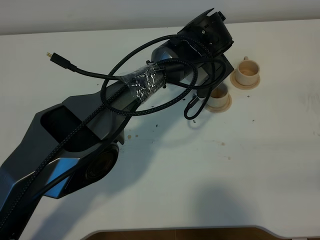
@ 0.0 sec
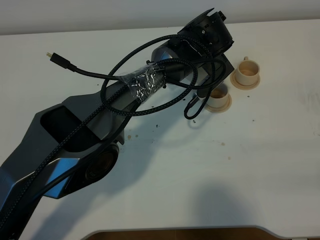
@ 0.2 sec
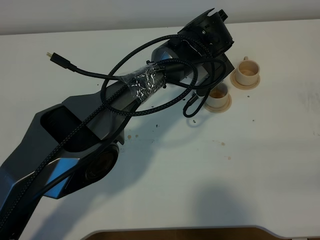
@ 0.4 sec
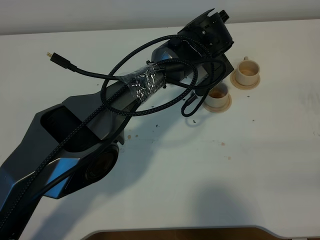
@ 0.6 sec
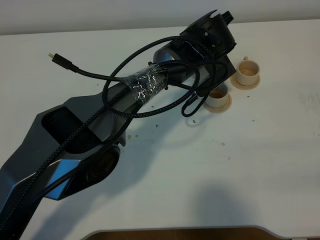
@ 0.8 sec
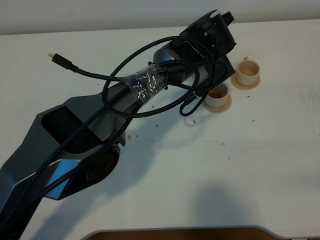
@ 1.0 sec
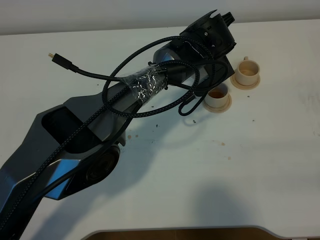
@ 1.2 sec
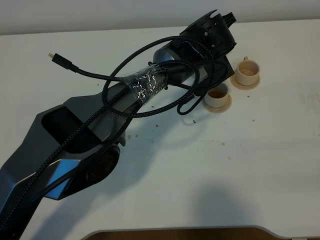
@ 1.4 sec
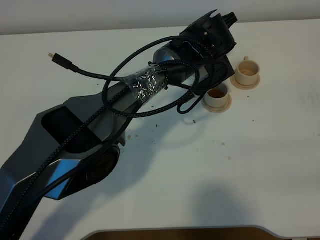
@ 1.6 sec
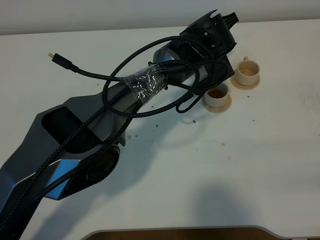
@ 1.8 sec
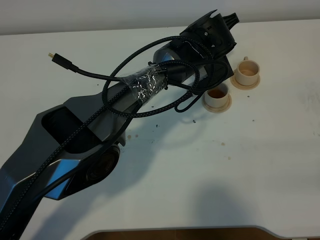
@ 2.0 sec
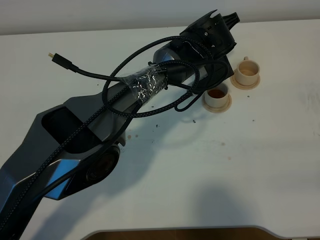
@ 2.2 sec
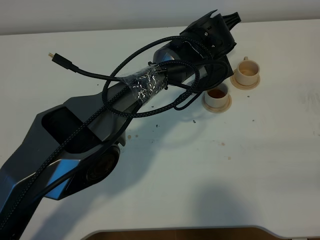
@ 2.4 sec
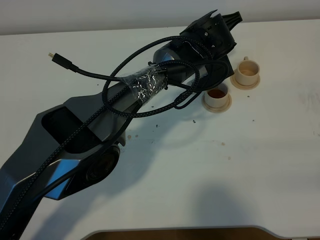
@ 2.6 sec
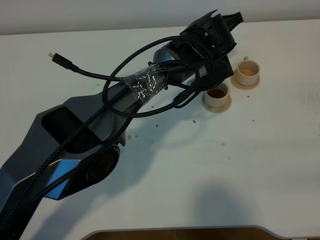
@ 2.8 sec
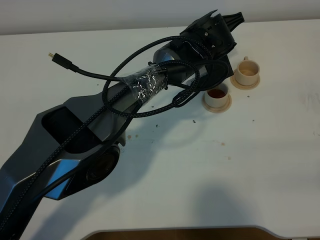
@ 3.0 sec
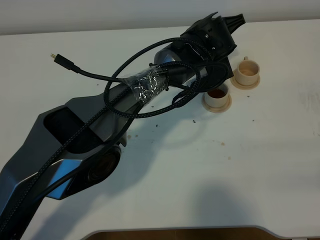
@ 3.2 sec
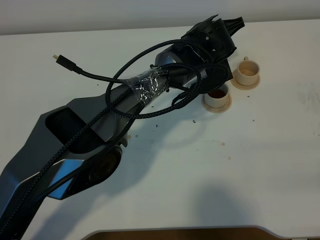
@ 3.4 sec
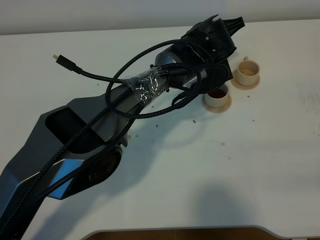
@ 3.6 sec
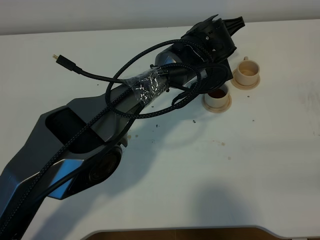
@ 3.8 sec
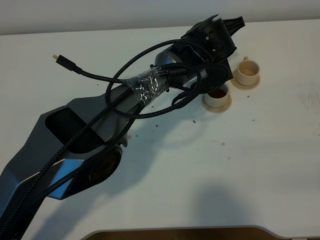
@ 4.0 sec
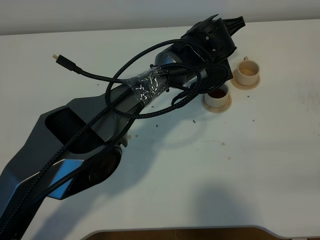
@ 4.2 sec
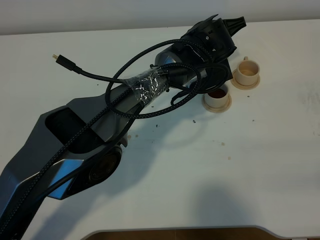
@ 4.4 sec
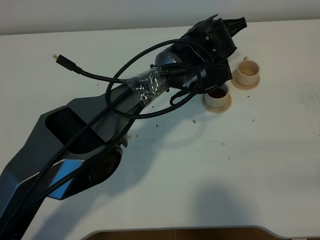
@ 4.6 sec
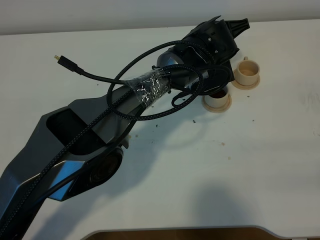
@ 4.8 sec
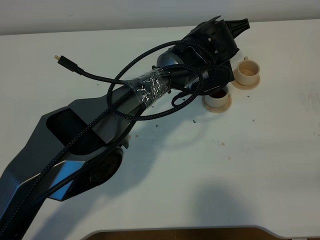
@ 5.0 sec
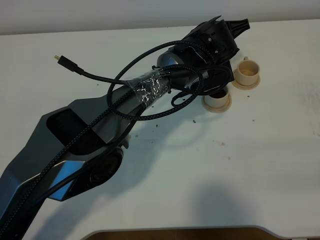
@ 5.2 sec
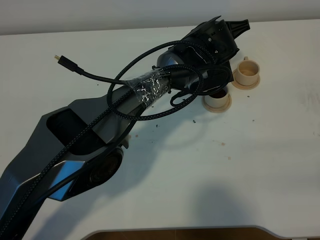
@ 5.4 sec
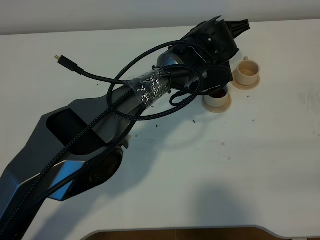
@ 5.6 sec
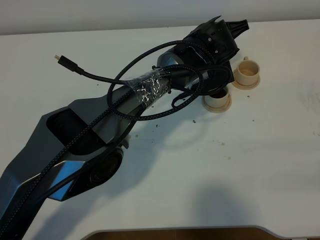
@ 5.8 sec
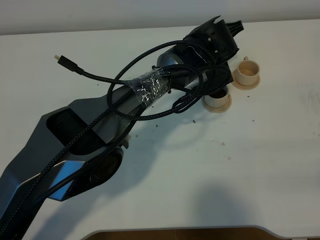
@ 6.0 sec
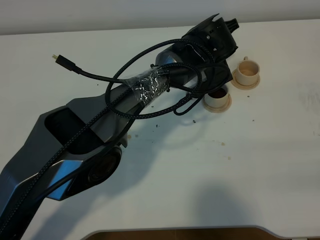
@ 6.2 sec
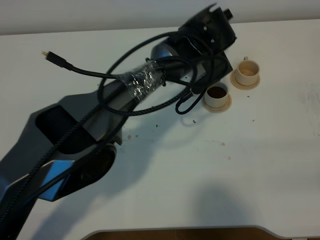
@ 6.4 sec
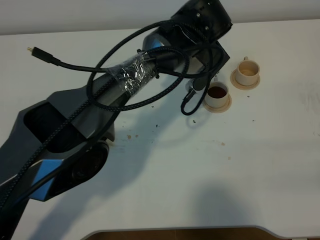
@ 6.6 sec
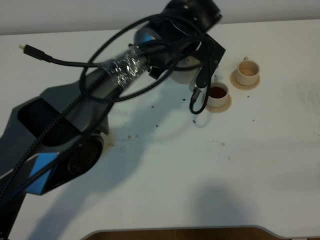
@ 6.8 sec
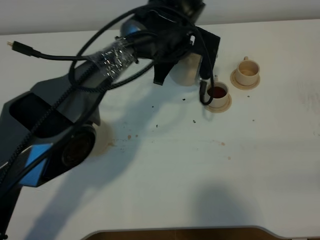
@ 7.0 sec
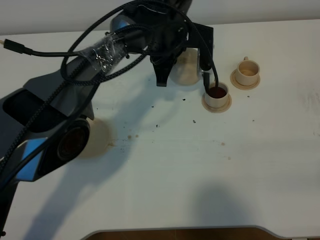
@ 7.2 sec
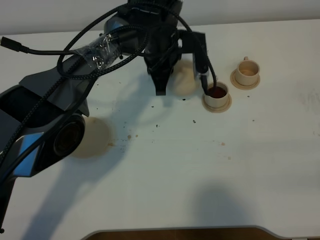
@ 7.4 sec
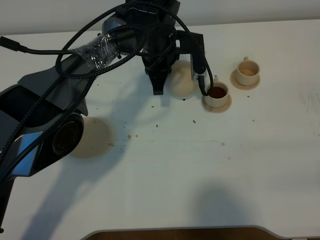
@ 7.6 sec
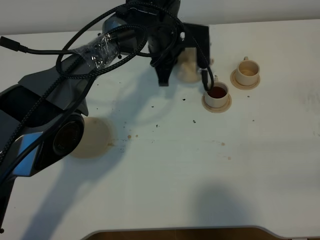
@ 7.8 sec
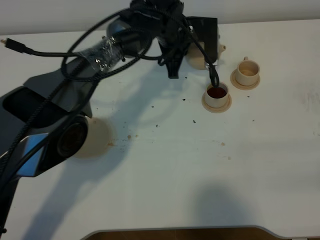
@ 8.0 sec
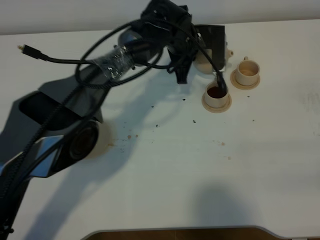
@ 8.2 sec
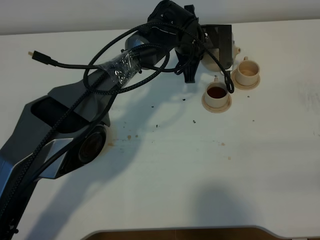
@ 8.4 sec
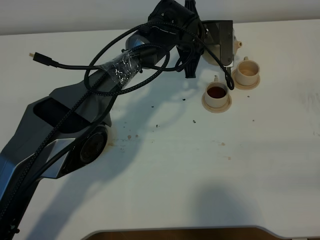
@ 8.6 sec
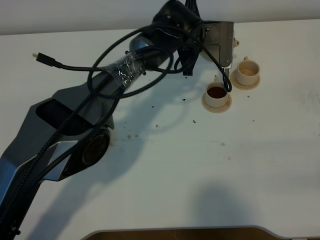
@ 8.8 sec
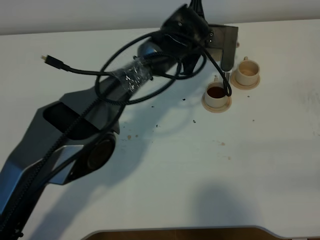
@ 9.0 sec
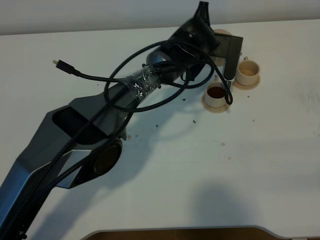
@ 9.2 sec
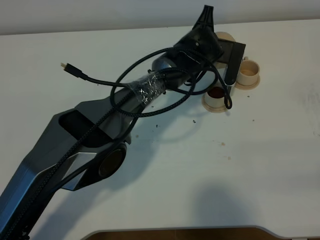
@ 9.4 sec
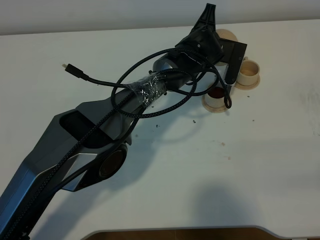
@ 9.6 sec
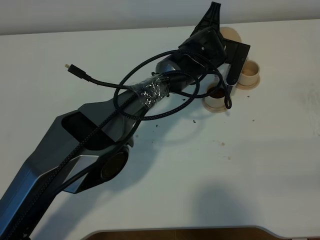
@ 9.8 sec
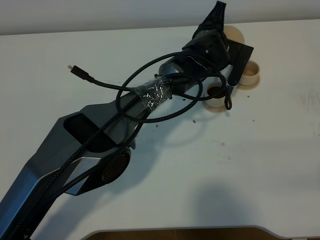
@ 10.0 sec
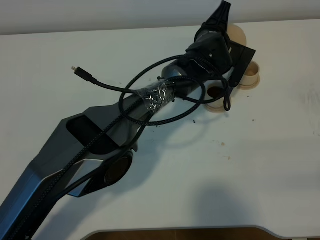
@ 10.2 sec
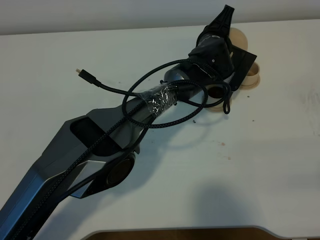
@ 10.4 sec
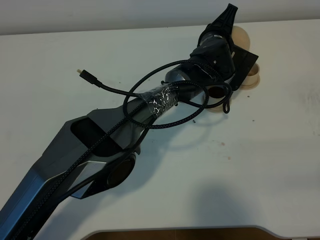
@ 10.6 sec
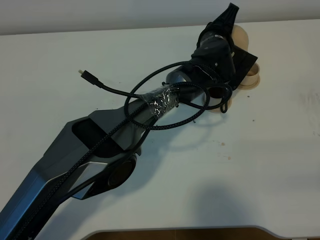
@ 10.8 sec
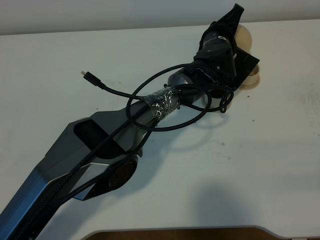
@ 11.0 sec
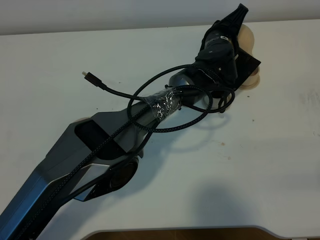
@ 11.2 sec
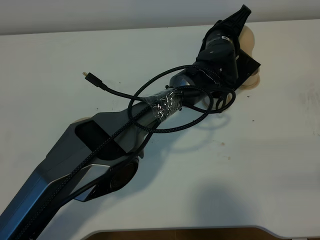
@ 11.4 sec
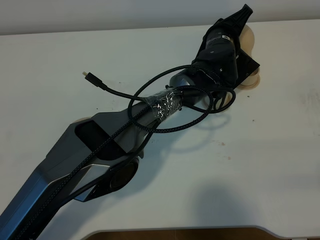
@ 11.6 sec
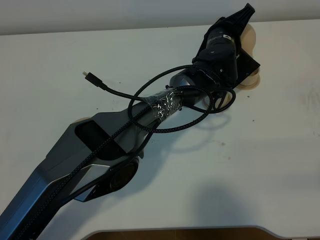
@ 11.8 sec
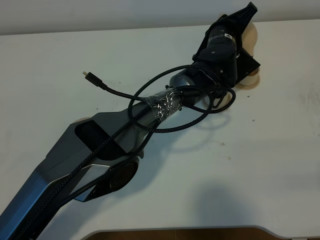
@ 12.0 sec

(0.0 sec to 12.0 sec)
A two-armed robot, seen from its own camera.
Task of the whole recording: grasp the brown teapot and pour the tea into the two brown teacups one by one, put the brown teapot back in its original place.
0.0 sec - 1.6 sec: The grippers move only a little.
3.0 sec - 4.4 sec: The two grippers keep their place.
4.4 sec - 6.0 sec: There are only small adjustments of the grippers.
6.0 sec - 7.6 sec: The left gripper is displaced to the left by some 10 cm.
7.6 sec - 9.0 sec: The left gripper is displaced to the right by about 5 cm.
9.0 sec - 10.4 sec: The left gripper shifts by roughly 5 cm.

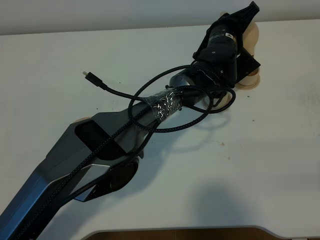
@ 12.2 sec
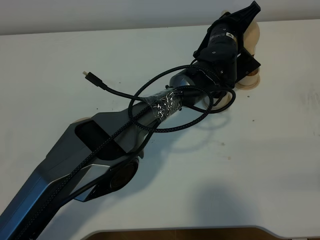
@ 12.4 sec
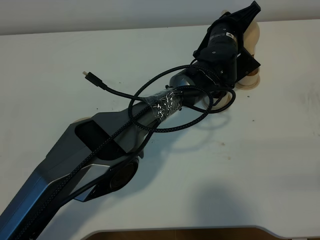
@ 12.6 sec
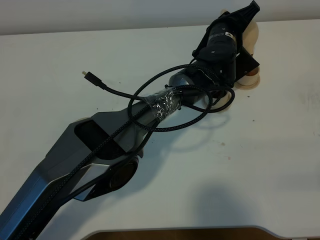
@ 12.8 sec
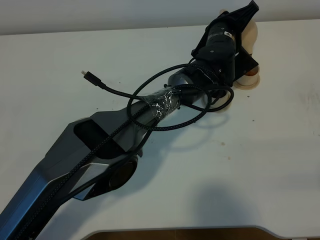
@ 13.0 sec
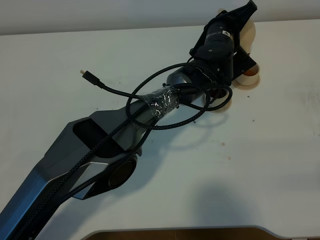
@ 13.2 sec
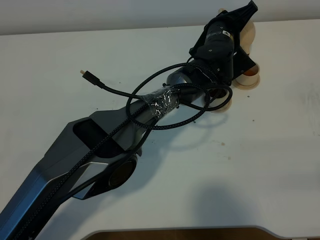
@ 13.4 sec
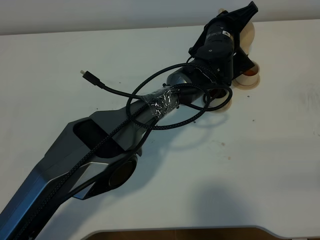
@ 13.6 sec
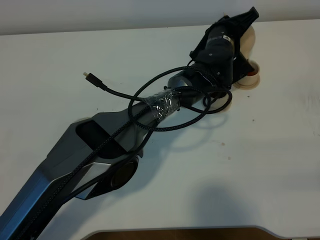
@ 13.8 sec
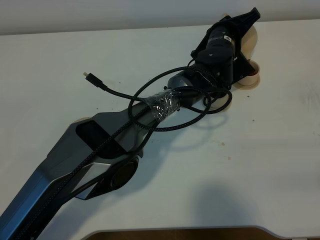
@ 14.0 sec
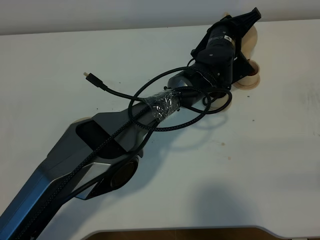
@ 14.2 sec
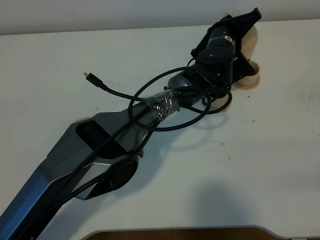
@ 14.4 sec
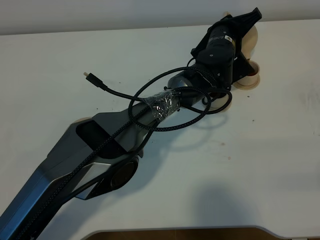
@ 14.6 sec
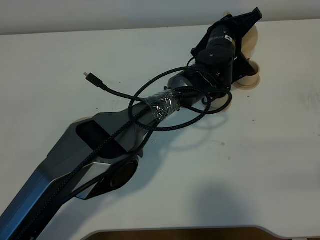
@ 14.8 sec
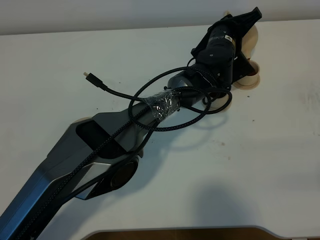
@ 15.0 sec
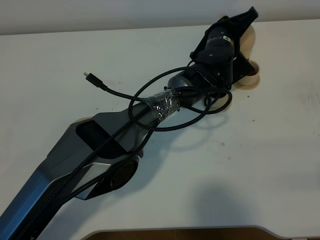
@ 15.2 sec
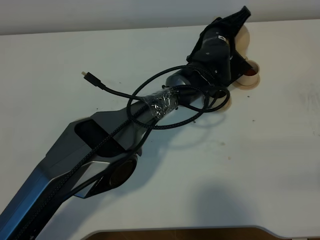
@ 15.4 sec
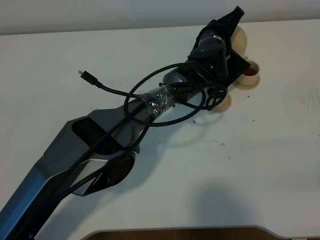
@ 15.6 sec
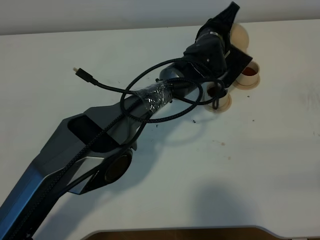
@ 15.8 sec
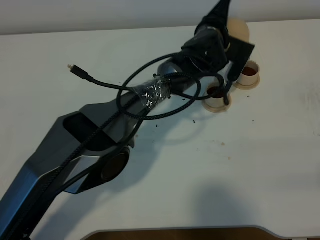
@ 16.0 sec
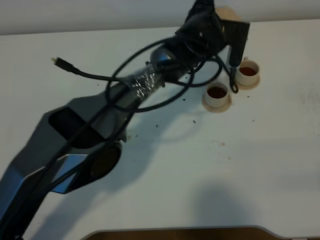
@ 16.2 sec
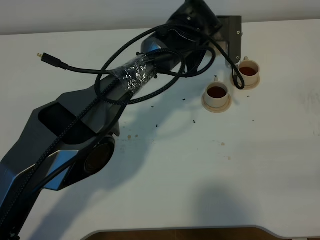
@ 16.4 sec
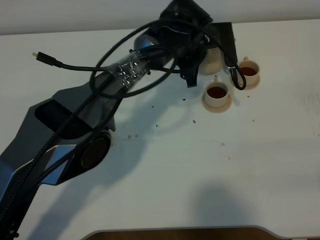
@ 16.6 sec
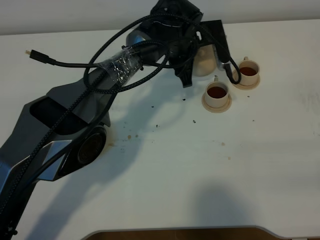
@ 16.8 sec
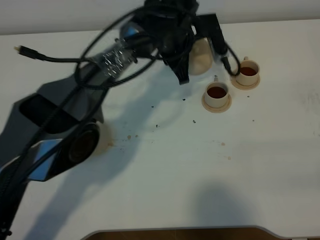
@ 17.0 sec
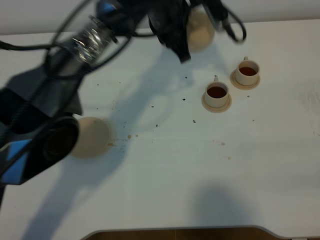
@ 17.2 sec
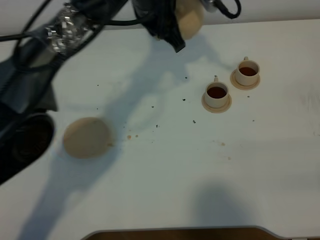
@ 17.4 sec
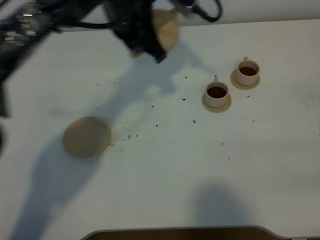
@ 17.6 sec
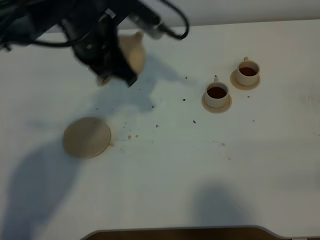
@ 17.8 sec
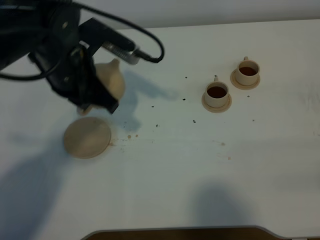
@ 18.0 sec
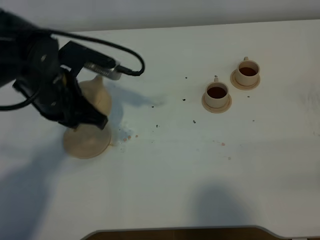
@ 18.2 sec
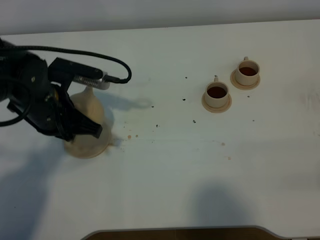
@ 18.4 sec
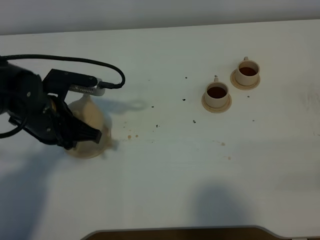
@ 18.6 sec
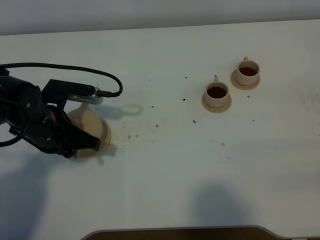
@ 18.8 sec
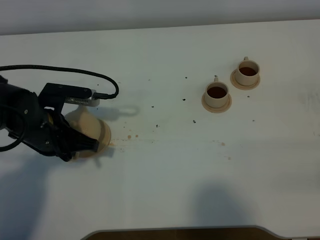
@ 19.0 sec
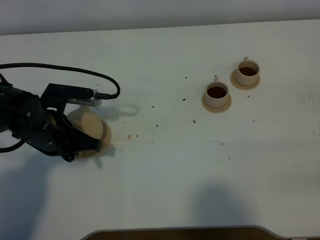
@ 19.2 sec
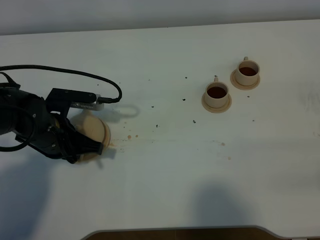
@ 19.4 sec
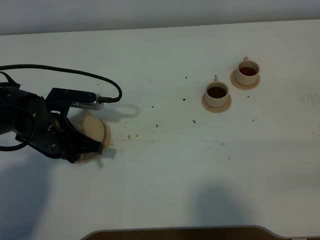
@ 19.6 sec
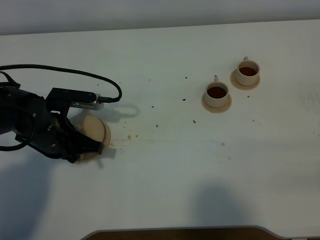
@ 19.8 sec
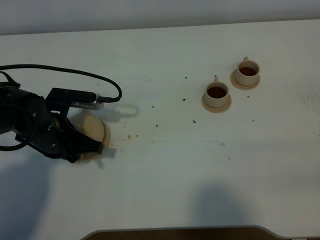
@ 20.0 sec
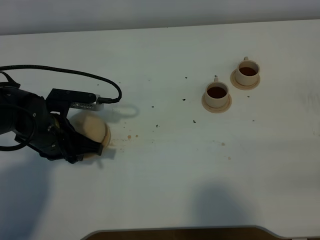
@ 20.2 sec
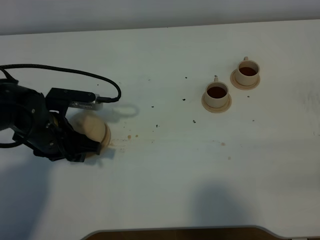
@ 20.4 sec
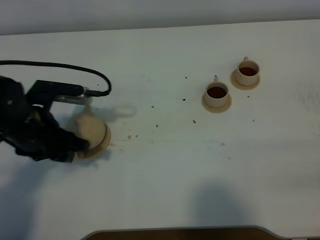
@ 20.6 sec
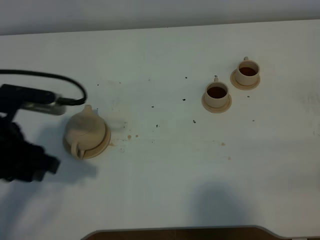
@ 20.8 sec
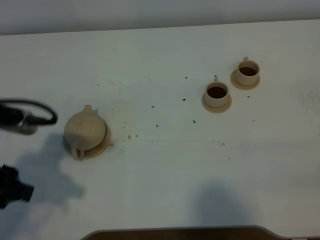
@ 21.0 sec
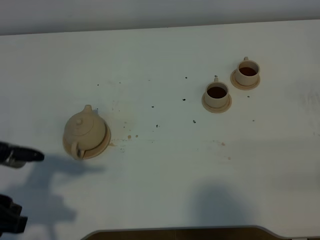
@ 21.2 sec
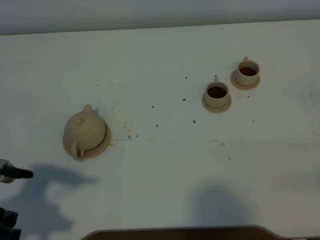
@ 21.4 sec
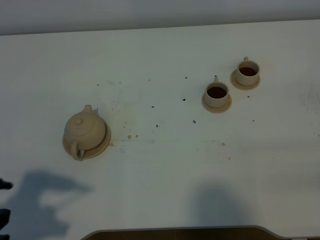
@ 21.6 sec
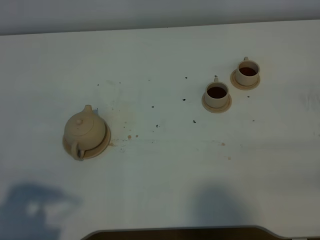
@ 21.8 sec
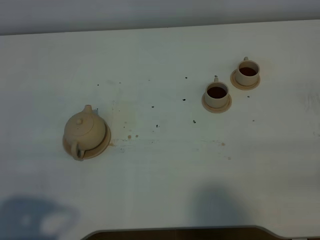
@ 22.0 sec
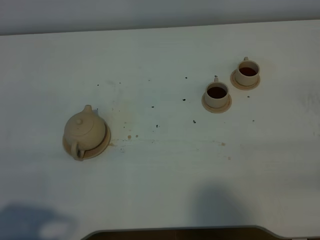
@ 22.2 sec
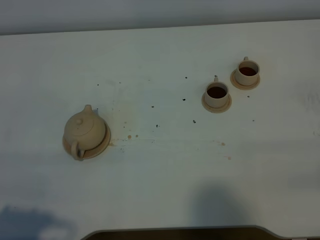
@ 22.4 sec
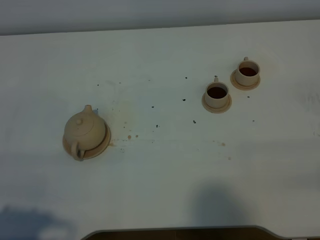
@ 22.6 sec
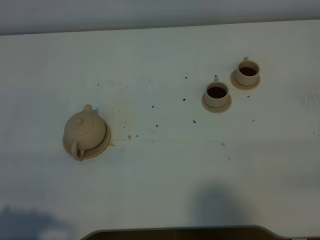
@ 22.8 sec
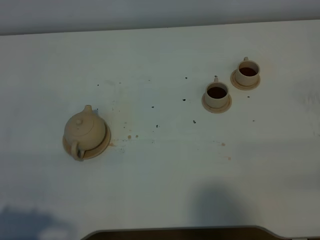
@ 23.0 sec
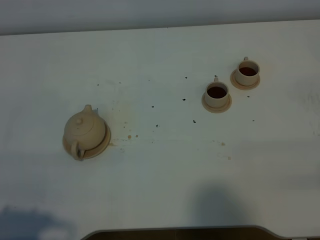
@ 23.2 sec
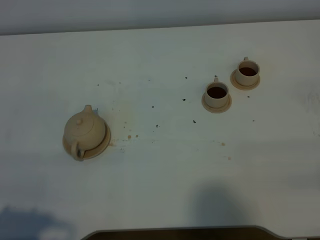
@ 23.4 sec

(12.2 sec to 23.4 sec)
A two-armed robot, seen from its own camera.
Task of the whole recording: grasp the brown teapot and pour the tea into the two brown teacups one by one, put the brown teapot back in its original place.
Step, 12.2 sec - 16.0 sec: Pour tea into the teacup with the left gripper.
12.2 sec - 15.4 sec: There are only small adjustments of the grippers.
15.4 sec - 17.0 sec: The left gripper moves to the left and upward, roughly 10 cm.
17.0 sec - 18.6 sec: The left gripper travels to the left and backward by some 25 cm.
18.6 sec - 20.2 sec: The left gripper opens its fingers.
20.2 sec - 21.8 sec: The left gripper is displaced backward and upward by some 25 cm.
21.8 sec - 23.4 sec: There are only small adjustments of the grippers.
